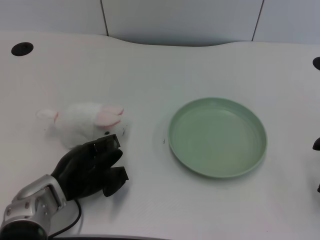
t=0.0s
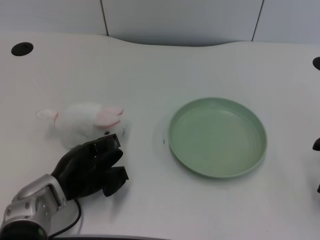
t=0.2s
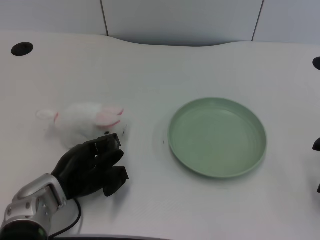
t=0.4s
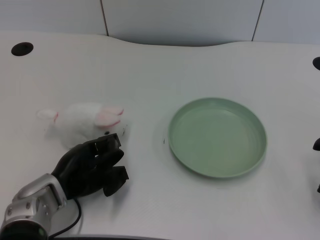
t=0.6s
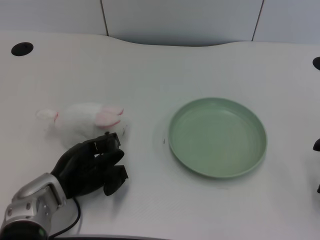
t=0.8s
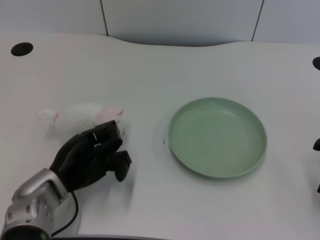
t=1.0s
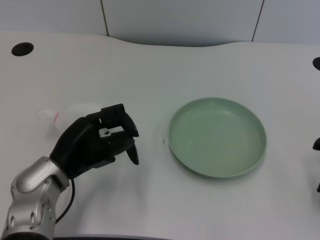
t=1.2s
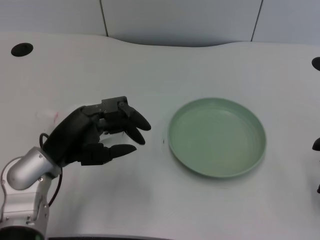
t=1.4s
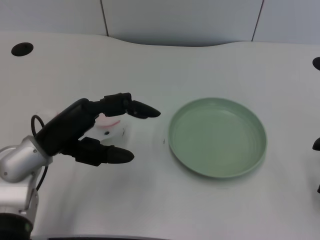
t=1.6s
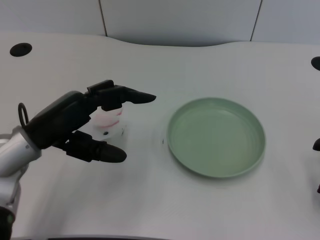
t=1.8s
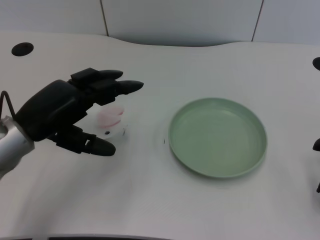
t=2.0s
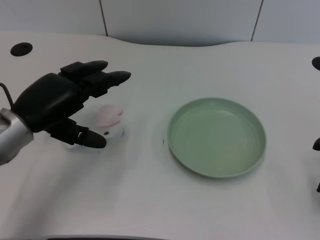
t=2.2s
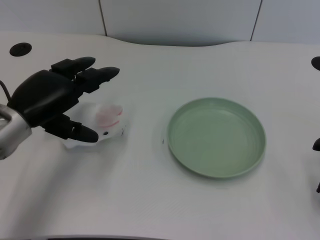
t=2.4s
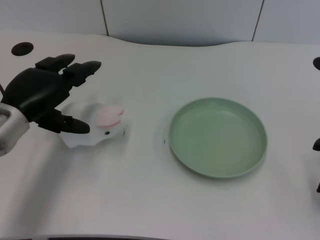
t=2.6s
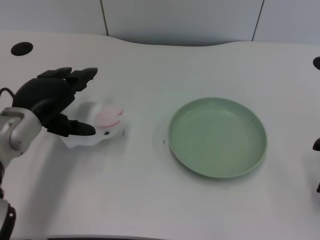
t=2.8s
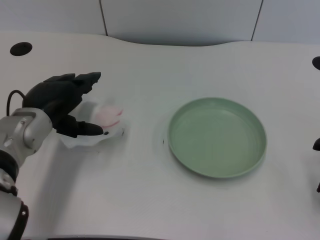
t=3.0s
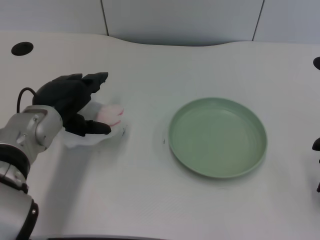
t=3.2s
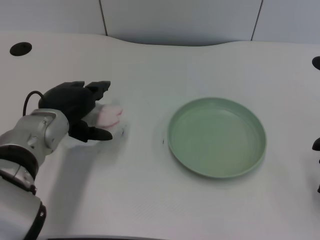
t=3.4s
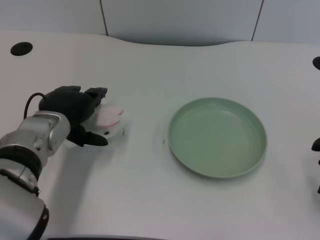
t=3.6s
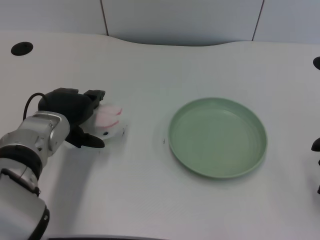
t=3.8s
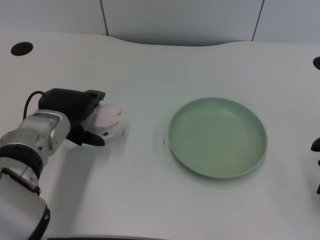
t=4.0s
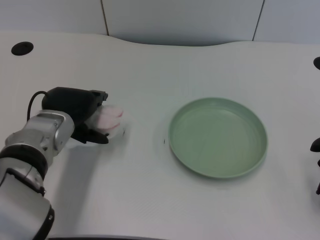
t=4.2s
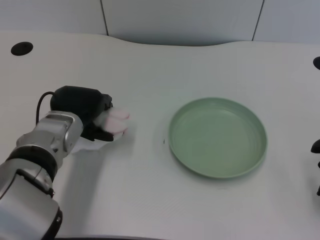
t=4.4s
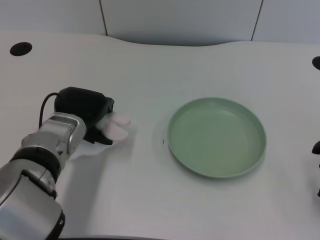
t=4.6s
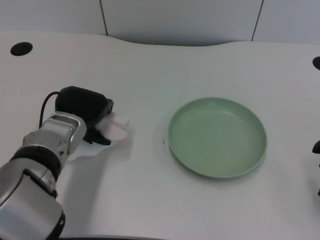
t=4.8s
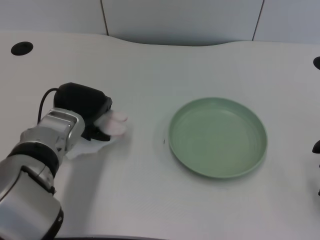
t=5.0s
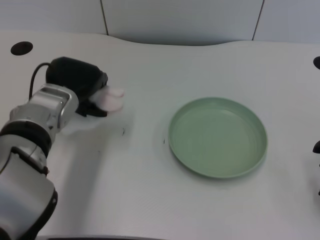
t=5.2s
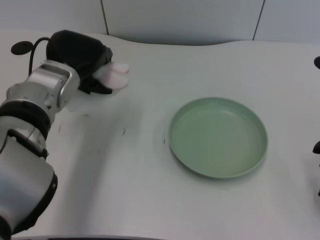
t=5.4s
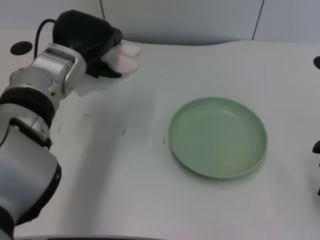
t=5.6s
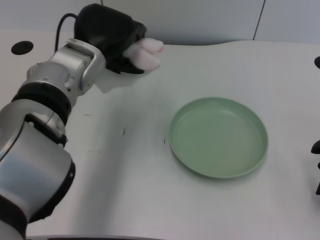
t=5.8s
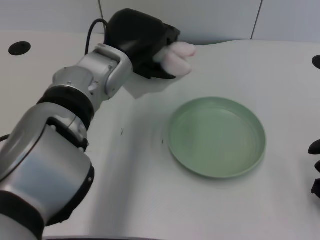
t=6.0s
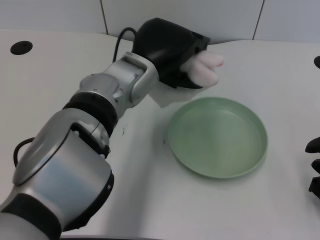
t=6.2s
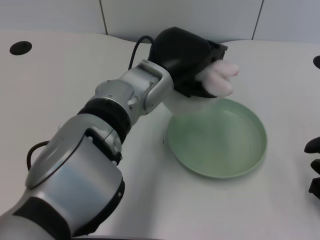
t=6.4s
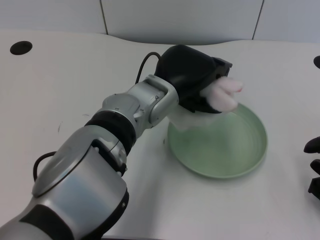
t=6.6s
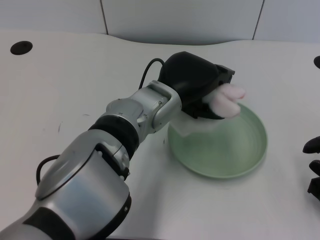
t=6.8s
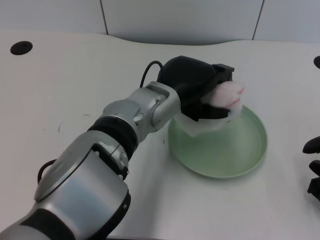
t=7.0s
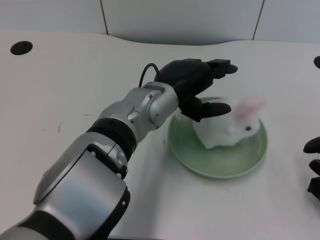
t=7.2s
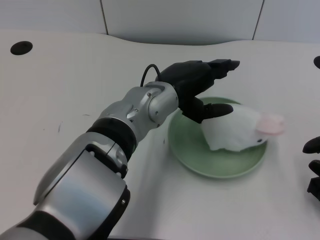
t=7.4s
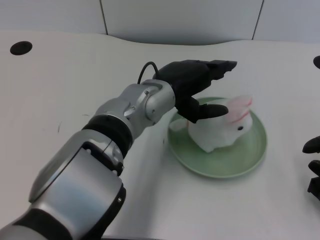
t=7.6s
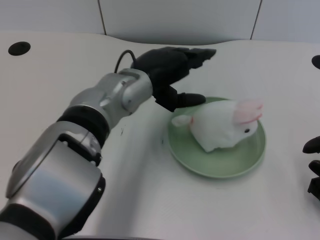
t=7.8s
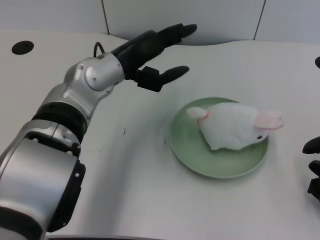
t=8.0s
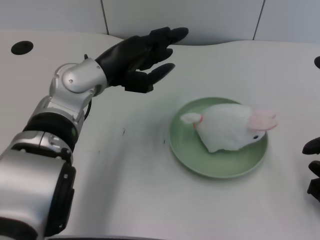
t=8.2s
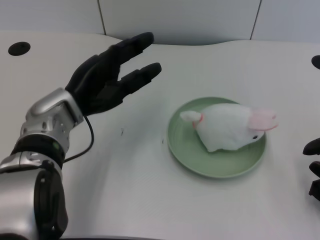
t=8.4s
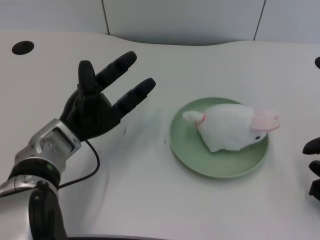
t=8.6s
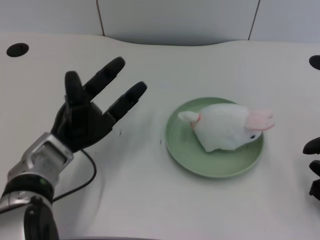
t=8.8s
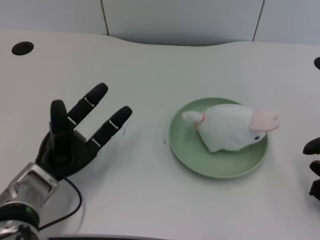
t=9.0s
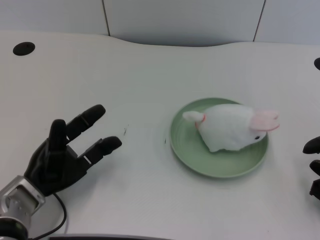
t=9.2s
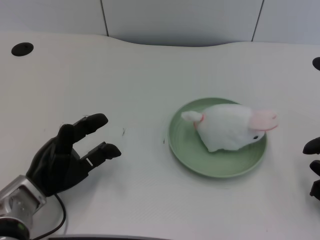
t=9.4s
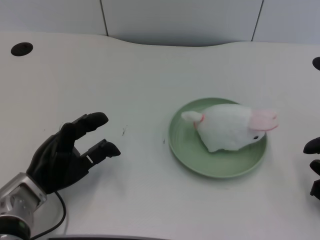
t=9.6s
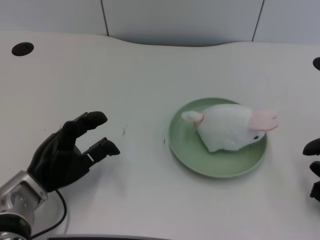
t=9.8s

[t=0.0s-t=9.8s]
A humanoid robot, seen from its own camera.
Task of the whole recording: pick up the rabbit doll from the table and place it on the plate.
Step, t=0.8s to t=5.0s: Grasp the rabbit doll with the left gripper.
Step, t=5.2s to t=7.2s: Place the rabbit doll into the plate with the left gripper.
t=1.4s to t=2.8s: The left hand shifts about 5 cm forward.
t=2.8s to t=4.2s: The left hand moves roughly 5 cm.
t=4.2s to t=5.6s: The left hand goes some 10 cm upward.
t=5.6s to t=7.0s: The left hand travels to the right by some 10 cm.
t=7.0s to t=8.4s: The left hand shifts approximately 15 cm to the left.
t=8.4s to t=9.8s: The left hand is displaced downward, backward and to the left by approximately 15 cm.

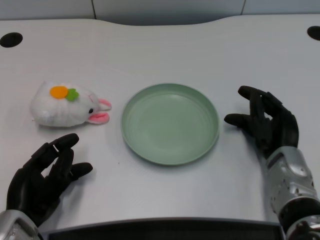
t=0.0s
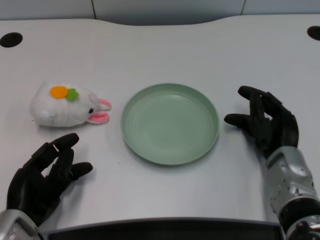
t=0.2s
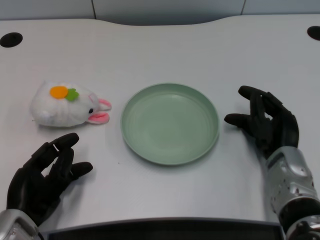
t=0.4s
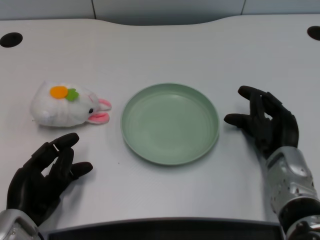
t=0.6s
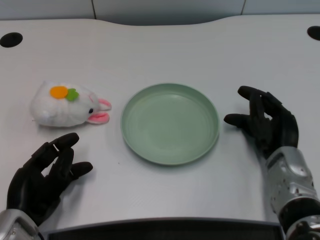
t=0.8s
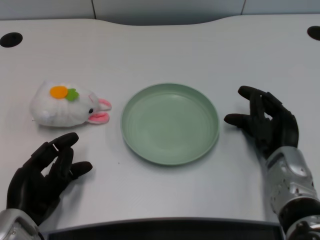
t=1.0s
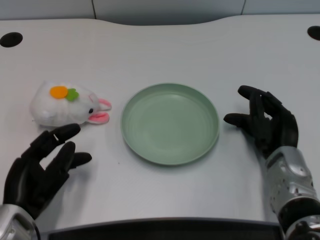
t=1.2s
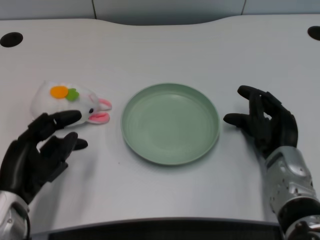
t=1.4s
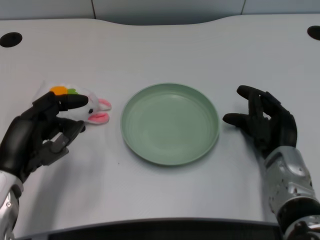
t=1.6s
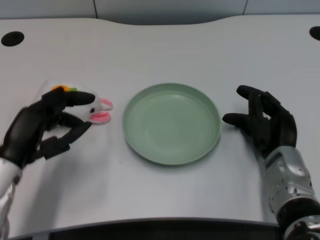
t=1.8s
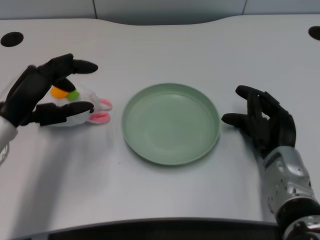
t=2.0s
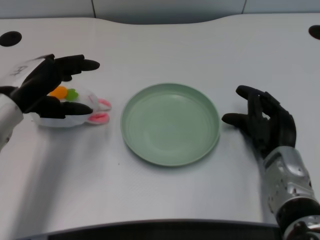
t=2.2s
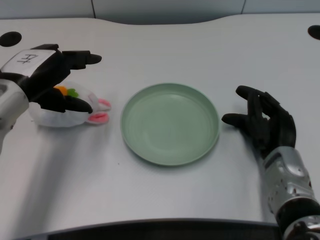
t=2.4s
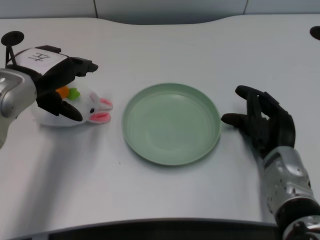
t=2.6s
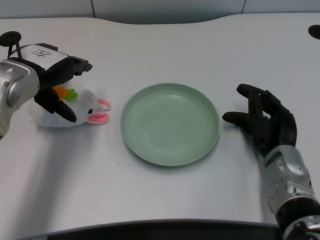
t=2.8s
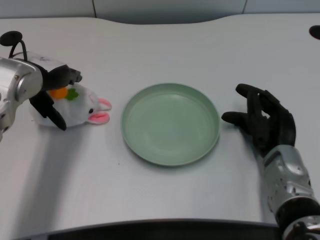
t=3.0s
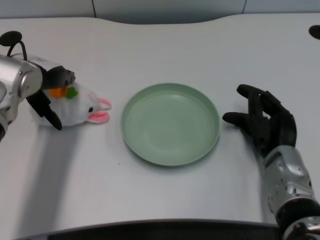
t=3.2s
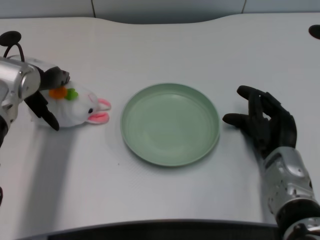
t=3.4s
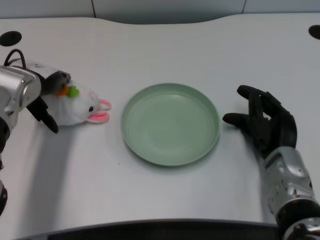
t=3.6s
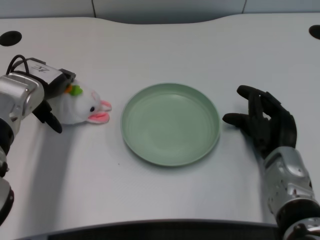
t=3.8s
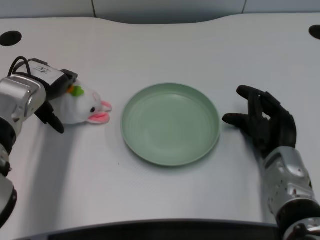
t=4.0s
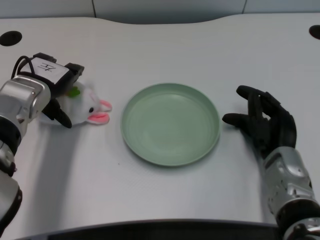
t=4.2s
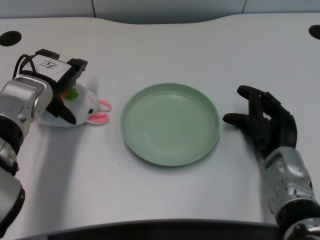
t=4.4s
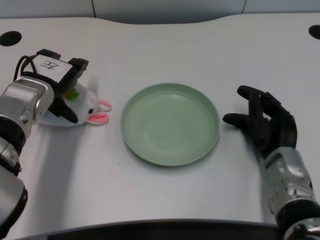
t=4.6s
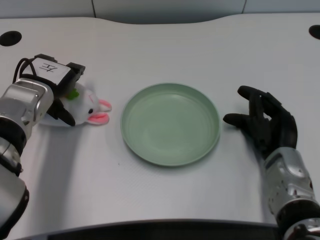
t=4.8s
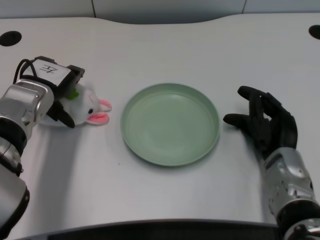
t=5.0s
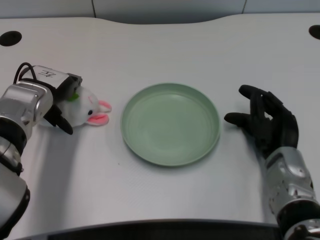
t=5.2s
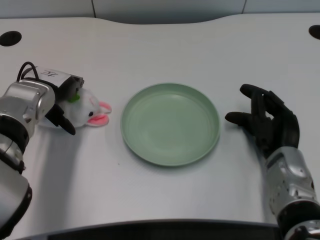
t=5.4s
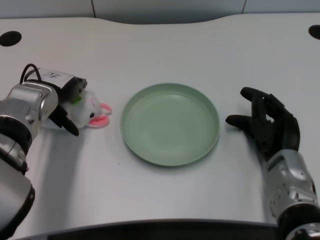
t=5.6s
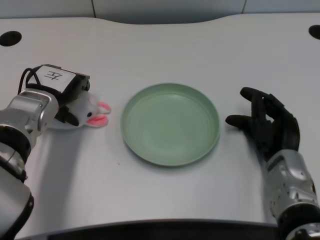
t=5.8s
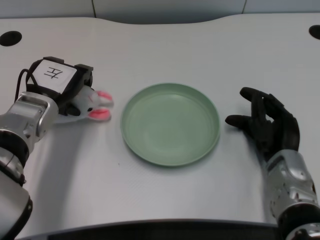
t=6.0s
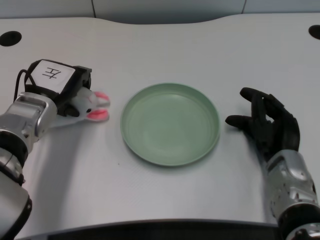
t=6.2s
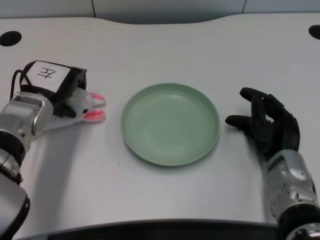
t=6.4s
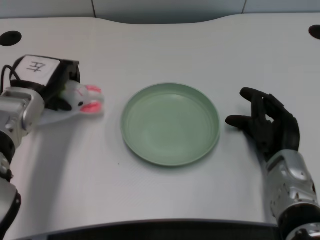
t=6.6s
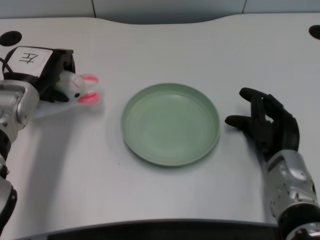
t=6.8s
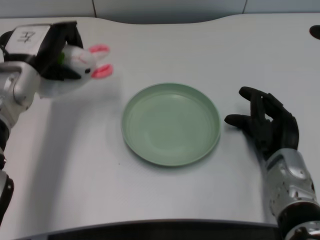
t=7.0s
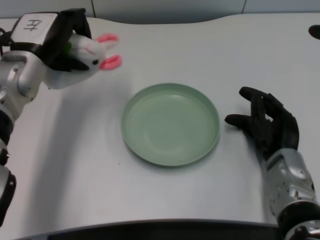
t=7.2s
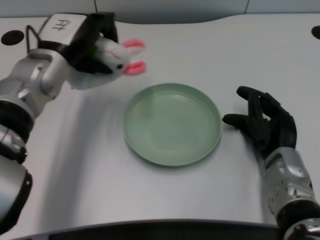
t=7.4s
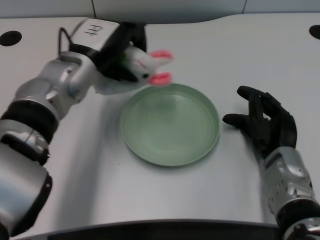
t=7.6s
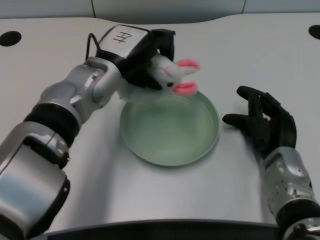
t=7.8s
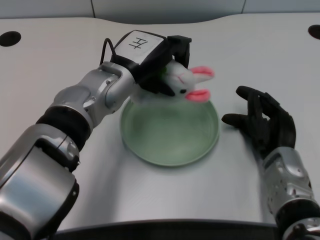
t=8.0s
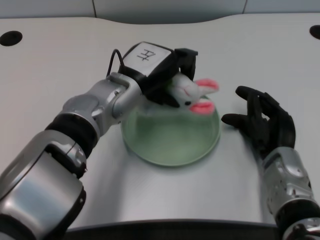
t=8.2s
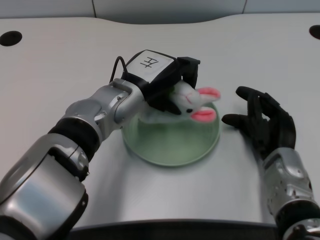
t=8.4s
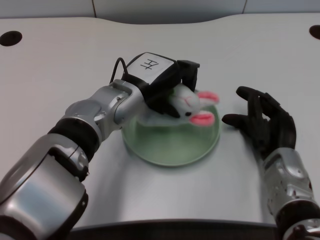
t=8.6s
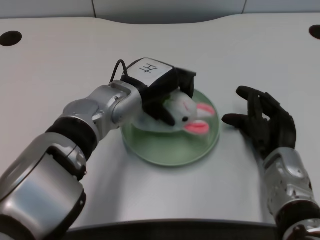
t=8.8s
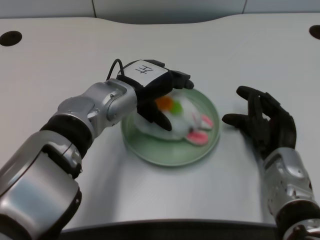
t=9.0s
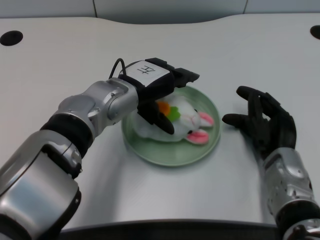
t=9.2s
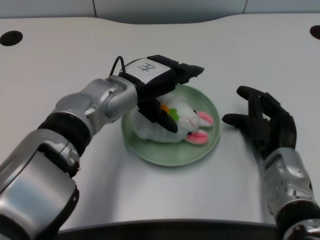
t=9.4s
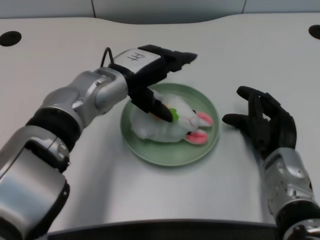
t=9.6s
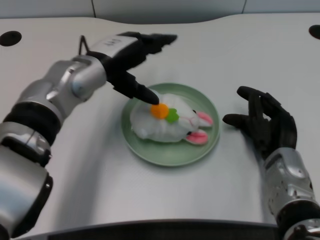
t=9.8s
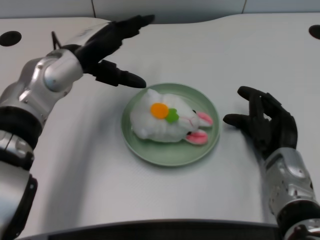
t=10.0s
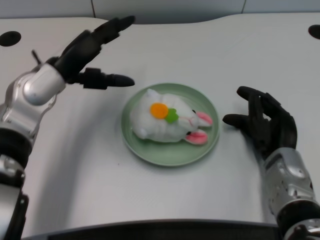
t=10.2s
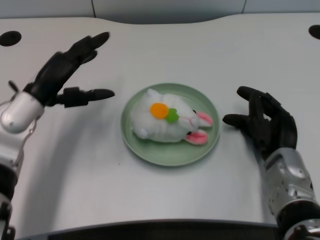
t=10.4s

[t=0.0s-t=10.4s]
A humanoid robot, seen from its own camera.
Task of the whole recording: pick up the rabbit doll from the table and place it on the plate.
Step, t=1.2s to t=6.6s: Grasp the rabbit doll with the left gripper.
Step, t=6.8s to t=9.0s: Place the rabbit doll into the plate with the left gripper.
t=1.4s to t=3.0s: The left hand is displaced forward and upward by approximately 20 cm.
t=3.0s to t=4.4s: The left hand is displaced downward by approximately 5 cm.
t=4.4s to t=6.0s: There are only small adjustments of the hands.
t=6.0s to t=7.4s: The left hand shifts approximately 5 cm upward.
t=7.4s to t=9.0s: The left hand moves to the right, some 10 cm.
t=9.0s to t=10.4s: The left hand travels to the left by about 15 cm.

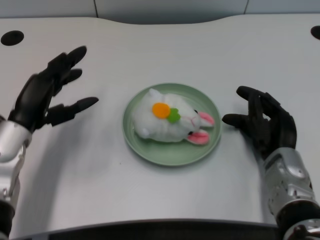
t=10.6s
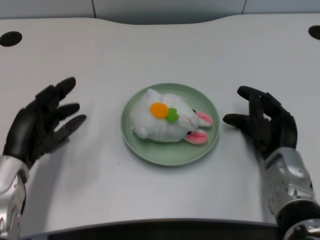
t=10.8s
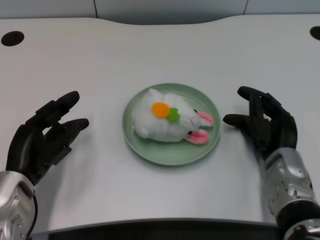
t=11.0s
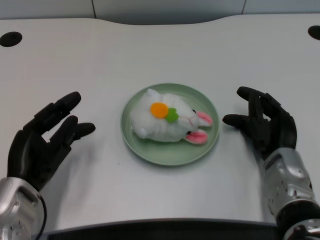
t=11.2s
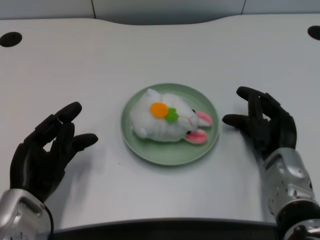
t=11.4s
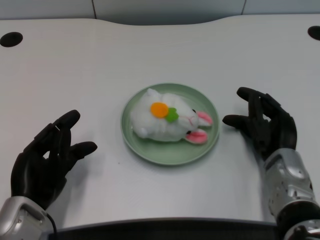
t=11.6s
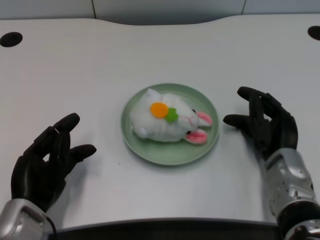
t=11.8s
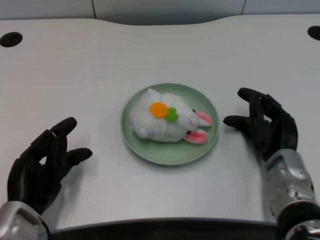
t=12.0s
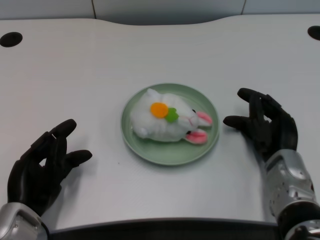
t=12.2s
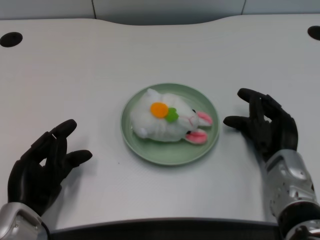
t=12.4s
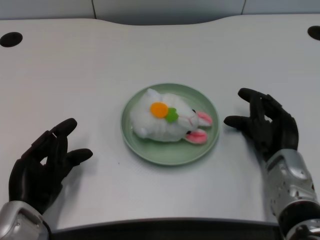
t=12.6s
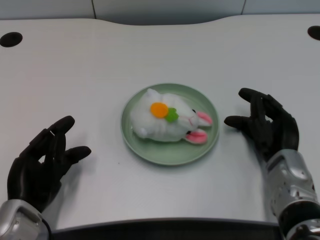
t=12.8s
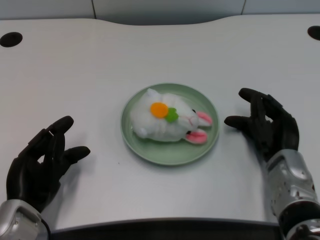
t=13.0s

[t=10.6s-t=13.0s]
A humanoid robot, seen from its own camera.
Task of the whole recording: pick up the rabbit doll from the table and place it on the plate.
t=10.6s to t=11.8s: The left hand goes approximately 10 cm backward and downward.
t=11.8s to t=13.0s: Neither hand changes place.
